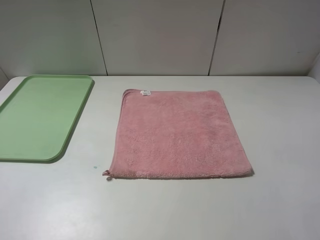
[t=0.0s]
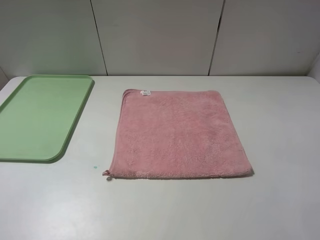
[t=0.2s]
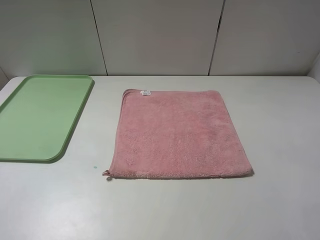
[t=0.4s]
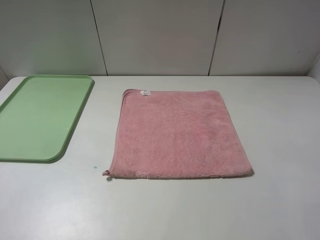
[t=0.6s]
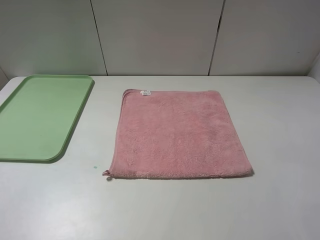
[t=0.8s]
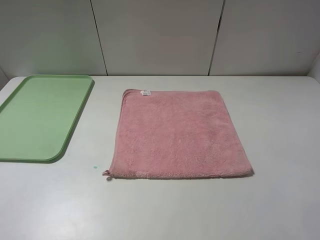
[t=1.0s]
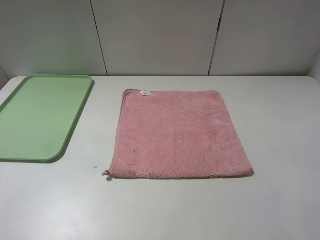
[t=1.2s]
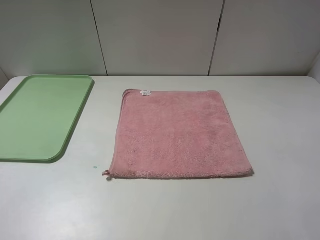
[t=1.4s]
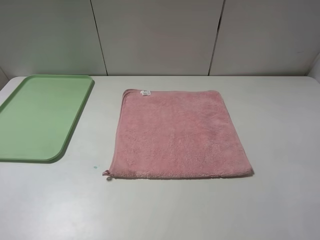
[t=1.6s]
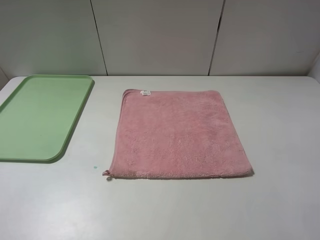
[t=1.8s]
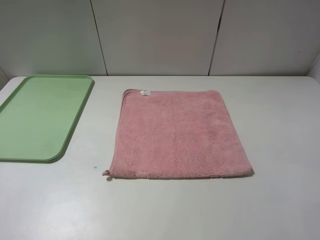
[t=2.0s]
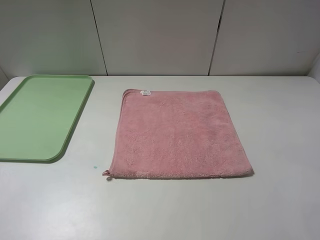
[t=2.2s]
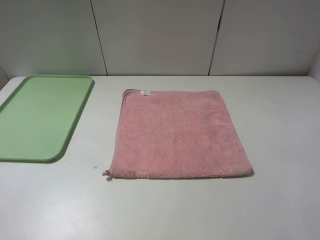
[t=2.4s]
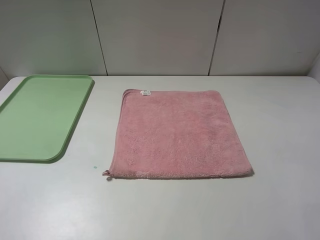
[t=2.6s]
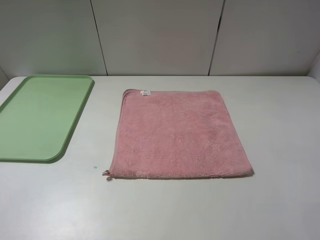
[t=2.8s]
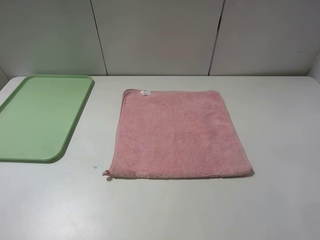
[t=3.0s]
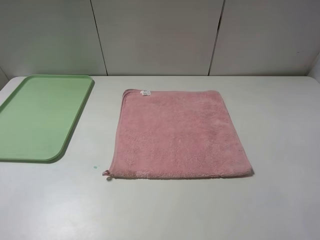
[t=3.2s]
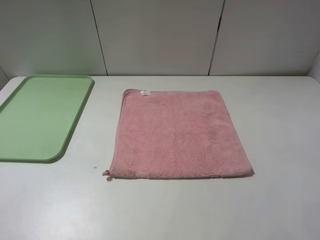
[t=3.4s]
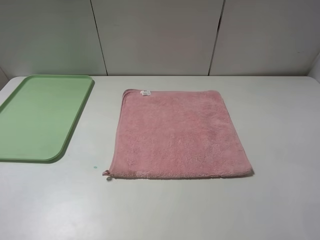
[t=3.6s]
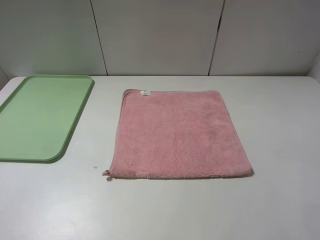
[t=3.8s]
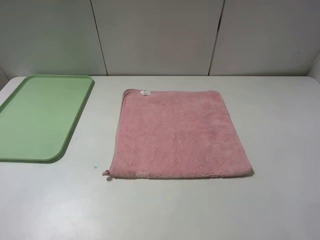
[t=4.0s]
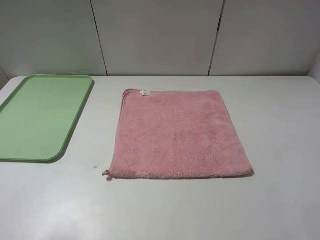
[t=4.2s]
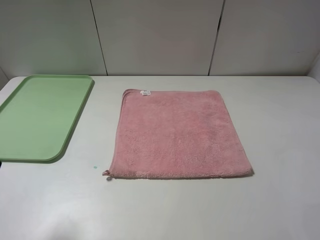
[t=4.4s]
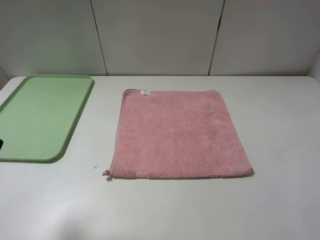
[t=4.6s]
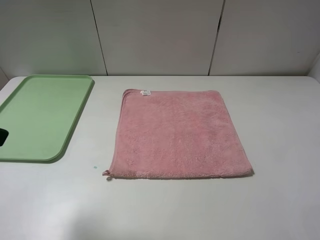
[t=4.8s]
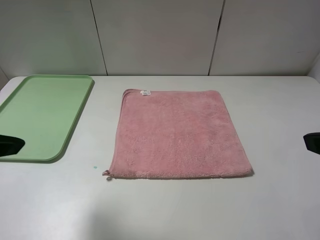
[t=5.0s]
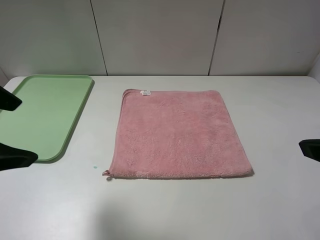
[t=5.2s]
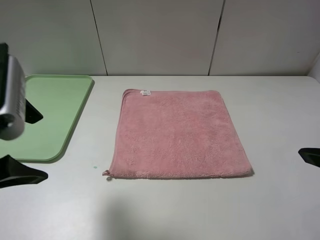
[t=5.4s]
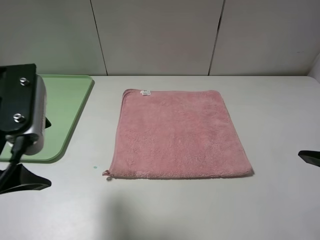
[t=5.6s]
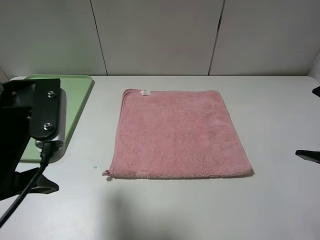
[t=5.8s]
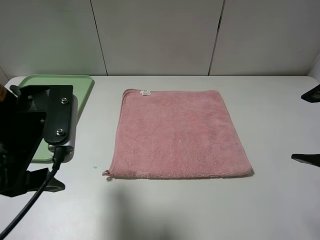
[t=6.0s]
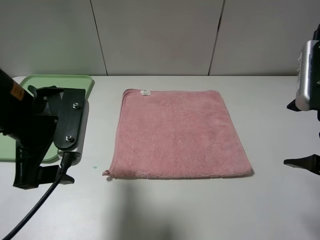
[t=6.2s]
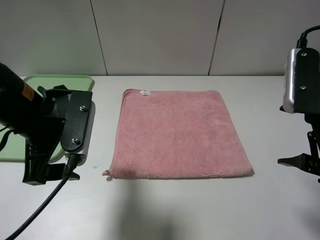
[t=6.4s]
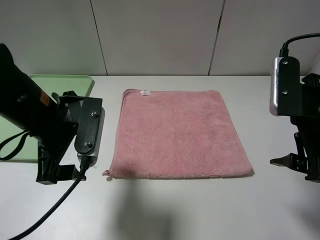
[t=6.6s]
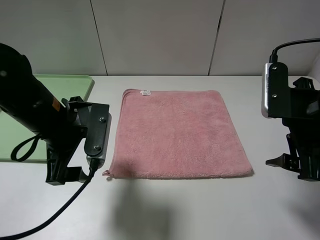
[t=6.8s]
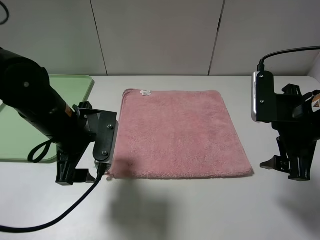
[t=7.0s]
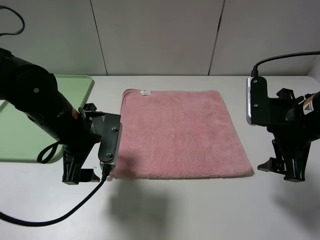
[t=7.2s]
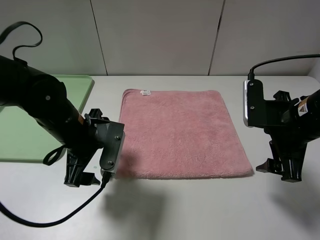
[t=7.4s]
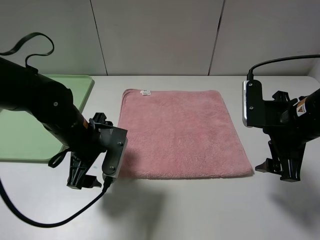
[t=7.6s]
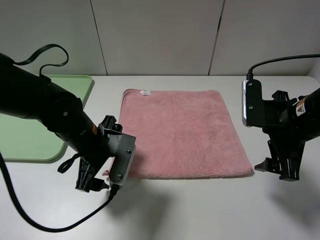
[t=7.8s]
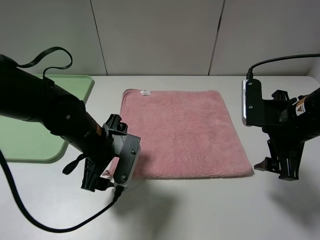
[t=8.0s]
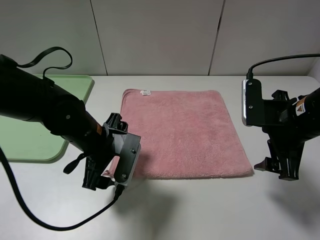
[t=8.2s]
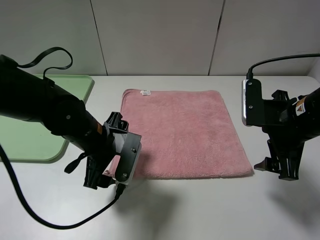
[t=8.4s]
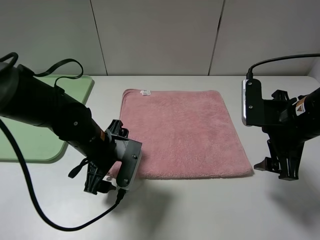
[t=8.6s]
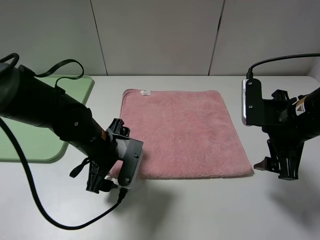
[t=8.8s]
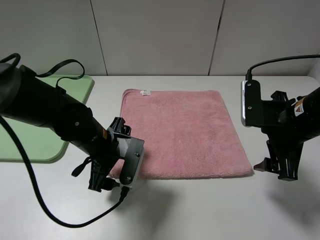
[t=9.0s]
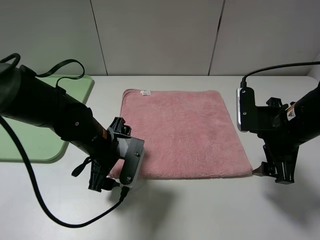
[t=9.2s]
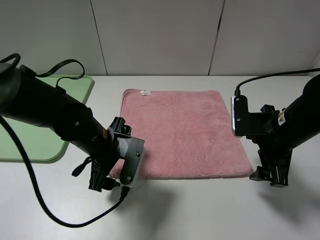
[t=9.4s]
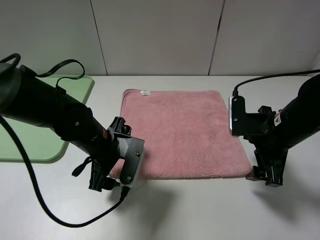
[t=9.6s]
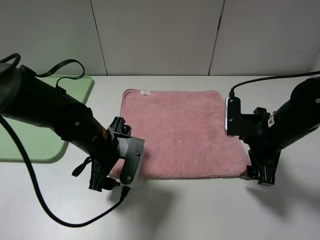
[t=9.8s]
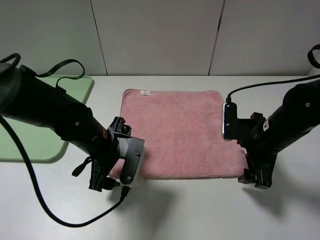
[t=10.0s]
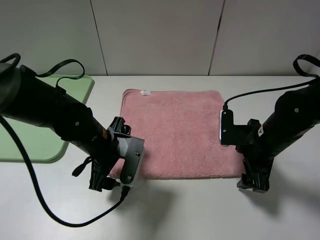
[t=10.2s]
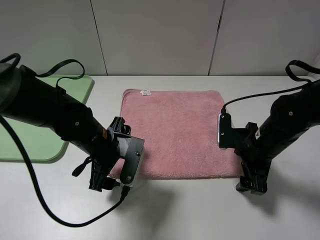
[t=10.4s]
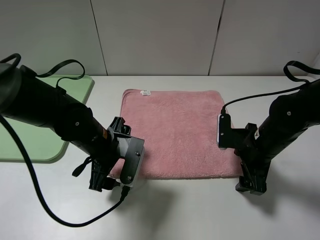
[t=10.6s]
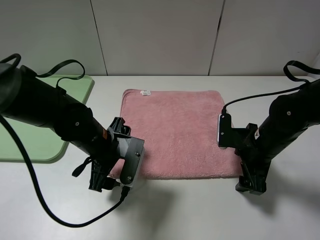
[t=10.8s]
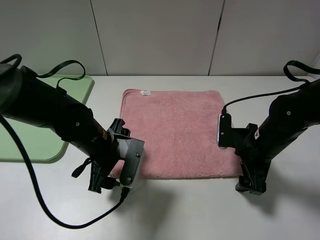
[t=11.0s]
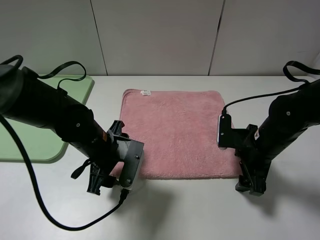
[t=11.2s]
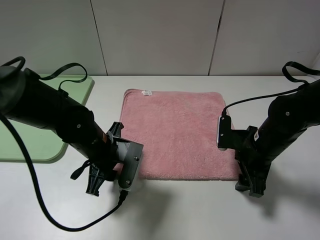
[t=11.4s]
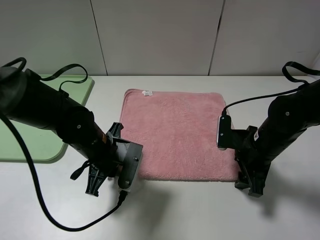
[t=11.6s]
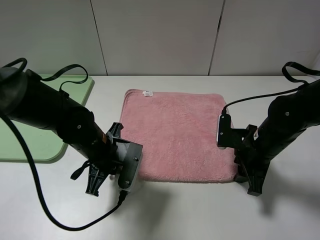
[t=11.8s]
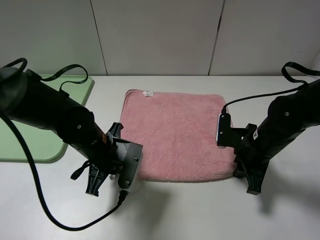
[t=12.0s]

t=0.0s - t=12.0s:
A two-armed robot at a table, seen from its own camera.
t=0.0s - t=3.0s: The two grippers keep their place.
t=4.4s - t=6.0s: The left gripper shifts some 15 cm forward and to the right, while the right gripper is displaced forward by roughly 10 cm.
t=6.0s - t=7.6s: The two grippers go some 10 cm downward and forward.
t=7.6s - t=9.0s: There are only small adjustments of the grippers.
t=9.0s - t=10.4s: The right gripper is displaced downward by some 10 cm.
t=10.4s - t=12.0s: The left gripper closes its fingers; the right gripper closes up.

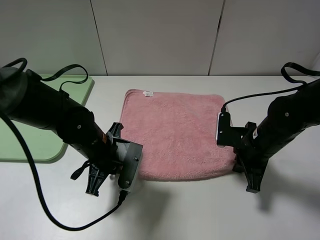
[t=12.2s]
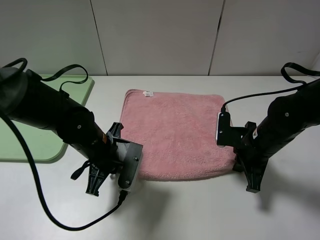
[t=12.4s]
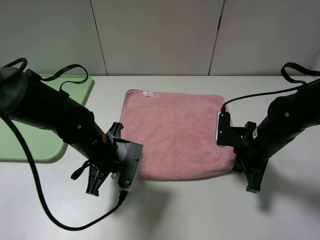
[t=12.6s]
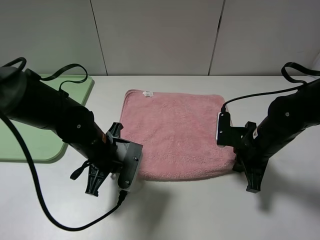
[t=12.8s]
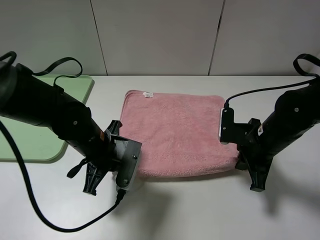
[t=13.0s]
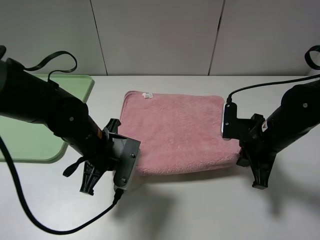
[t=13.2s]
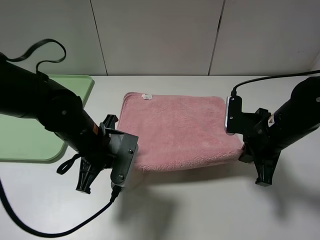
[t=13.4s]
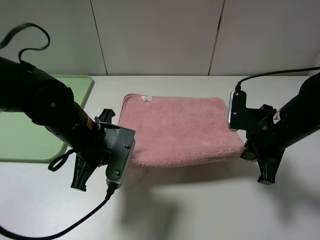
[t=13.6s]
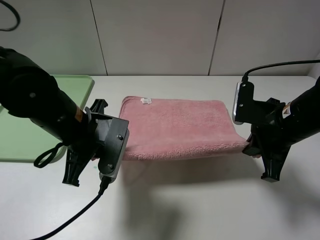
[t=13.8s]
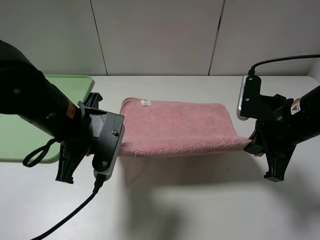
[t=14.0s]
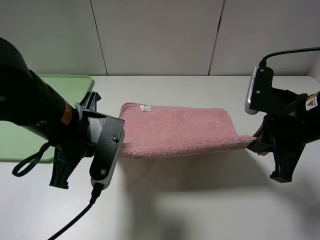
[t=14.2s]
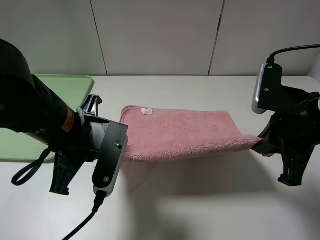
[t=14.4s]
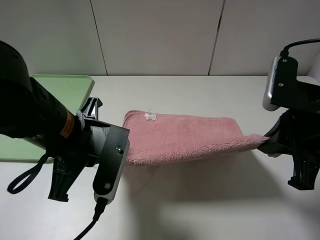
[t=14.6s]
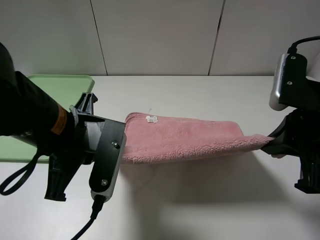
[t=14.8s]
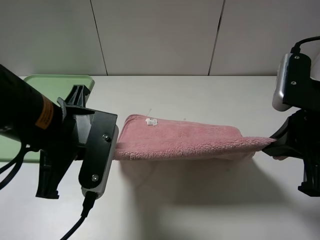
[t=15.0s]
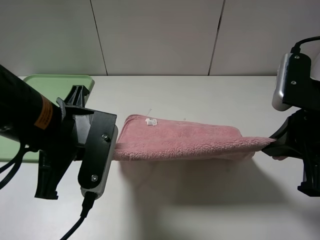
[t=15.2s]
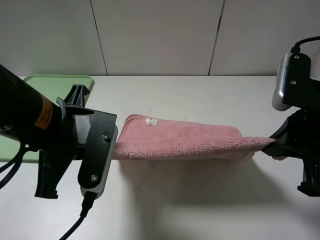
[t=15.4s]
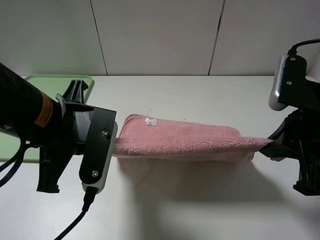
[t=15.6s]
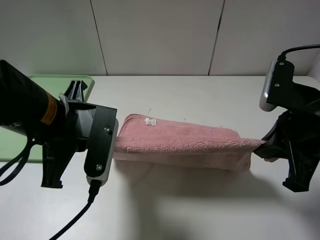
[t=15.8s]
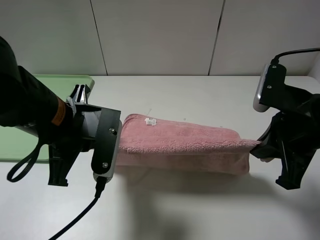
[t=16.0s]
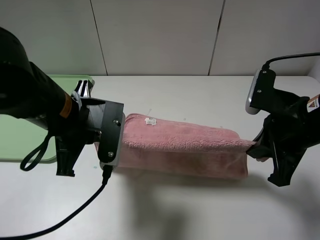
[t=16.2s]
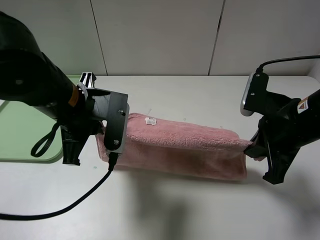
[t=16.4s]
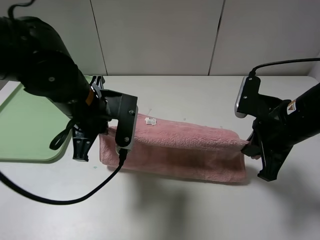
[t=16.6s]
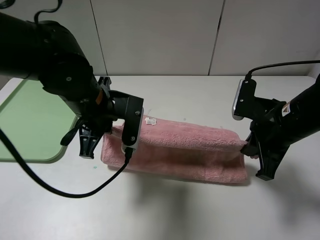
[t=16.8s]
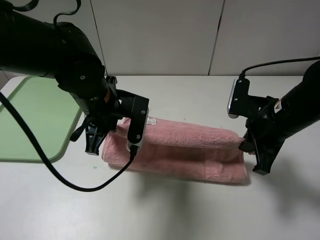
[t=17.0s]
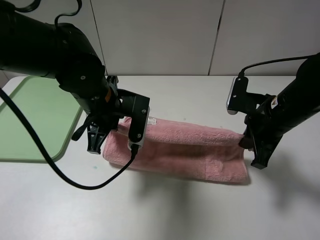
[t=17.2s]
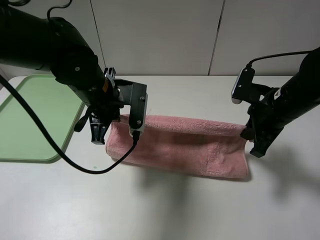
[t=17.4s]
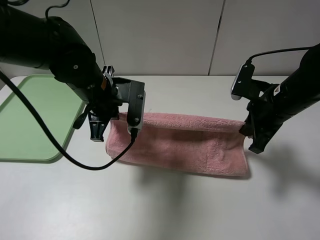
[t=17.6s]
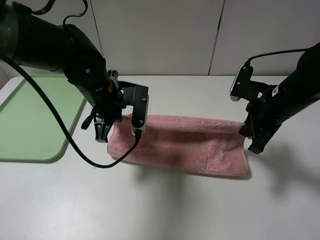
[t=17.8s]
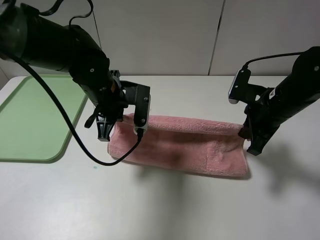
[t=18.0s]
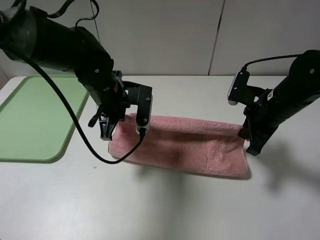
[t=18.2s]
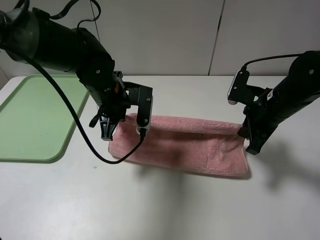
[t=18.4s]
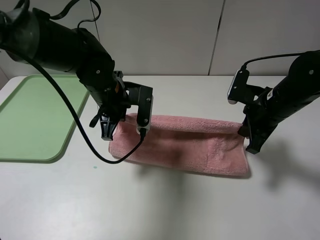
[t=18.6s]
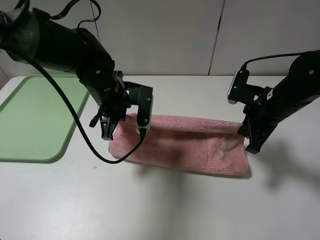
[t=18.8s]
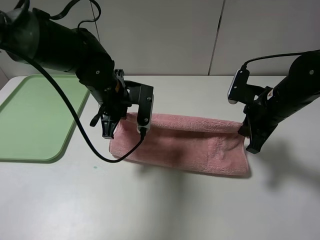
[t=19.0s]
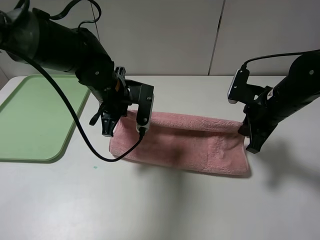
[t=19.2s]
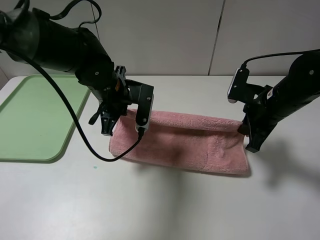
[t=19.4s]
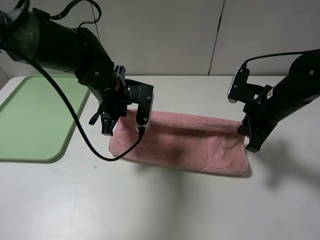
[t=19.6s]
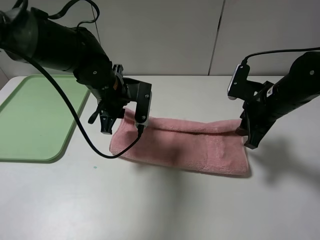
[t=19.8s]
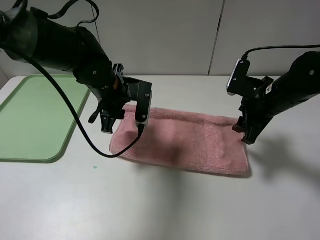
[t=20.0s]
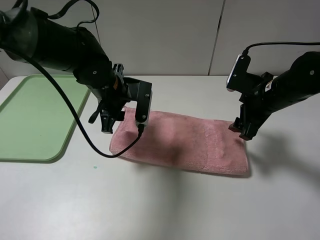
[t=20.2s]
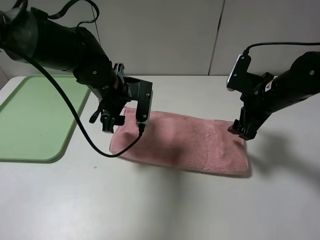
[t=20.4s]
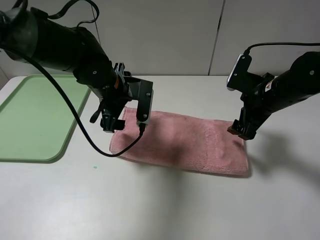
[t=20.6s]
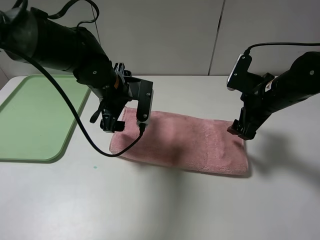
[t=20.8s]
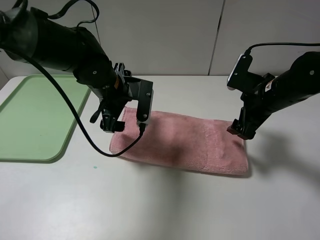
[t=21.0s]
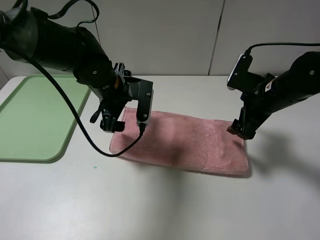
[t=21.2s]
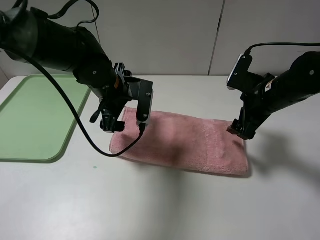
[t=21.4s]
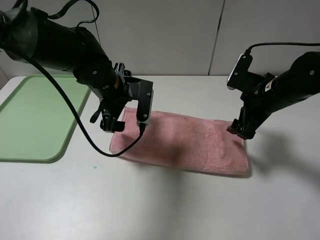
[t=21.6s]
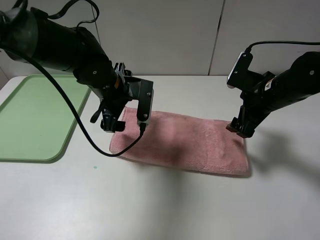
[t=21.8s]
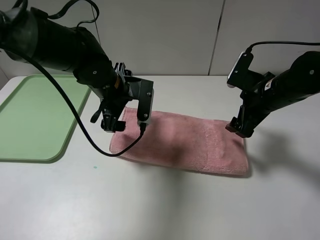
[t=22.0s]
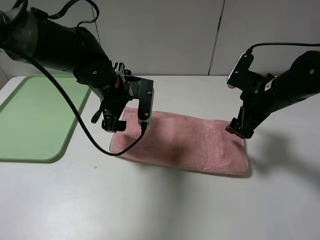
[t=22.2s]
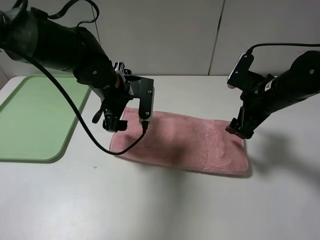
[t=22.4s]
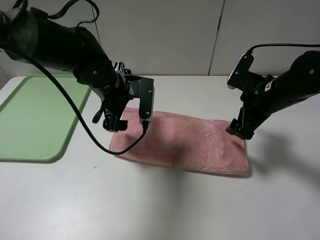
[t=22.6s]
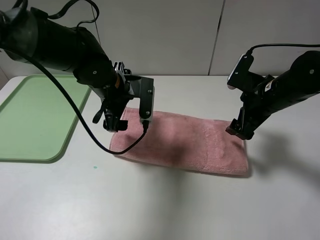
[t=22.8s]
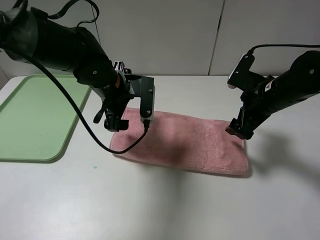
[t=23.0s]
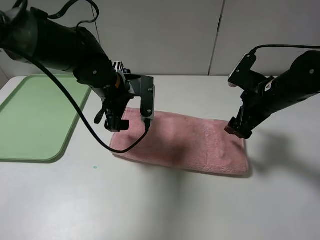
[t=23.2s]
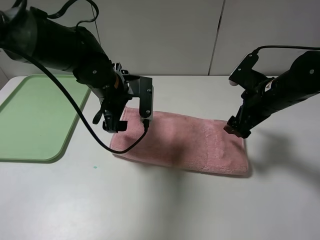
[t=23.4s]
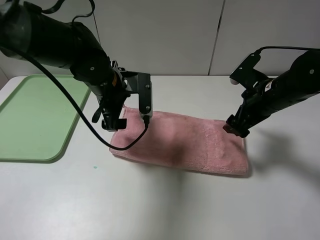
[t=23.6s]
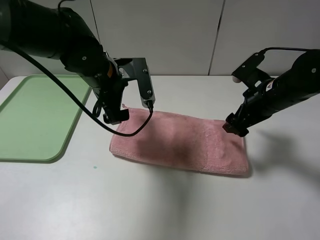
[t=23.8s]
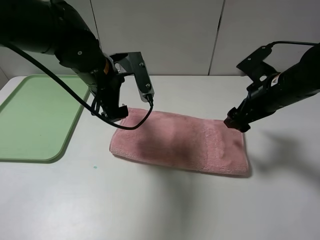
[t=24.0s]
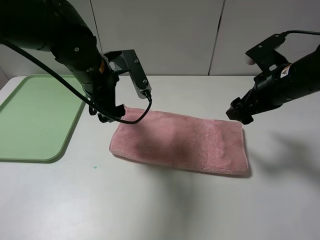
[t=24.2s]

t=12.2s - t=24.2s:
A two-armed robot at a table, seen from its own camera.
Step, t=12.2s - t=20.0s: Fold the pink towel upwards.
t=12.2s - t=13.8s: The two grippers go some 10 cm upward.
t=13.8s - t=15.2s: Both grippers travel together upward and backward, approximately 10 cm.
t=15.2s - t=16.6s: The left gripper goes about 10 cm forward; the right gripper heads downward and forward, covering approximately 10 cm.
t=16.6s - t=18.2s: The grippers both shift forward by approximately 5 cm.
t=18.2s - t=19.8s: The right gripper opens up. The left gripper opens up.
t=19.8s - t=21.2s: The right gripper opens. The left gripper opens its fingers.
t=21.2s - t=22.6s: Both grippers stay put.
t=22.6s - t=24.2s: The left gripper shifts by about 5 cm.
